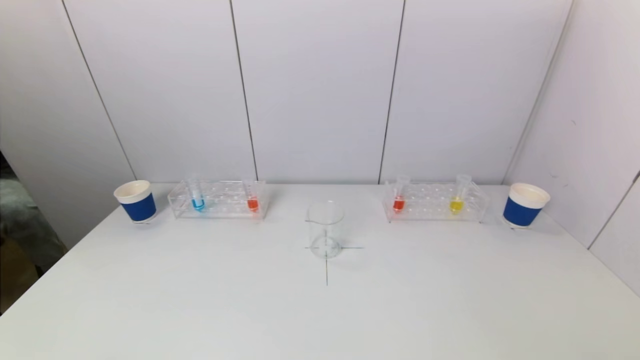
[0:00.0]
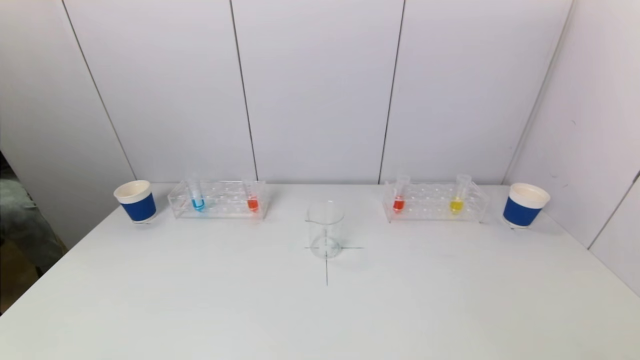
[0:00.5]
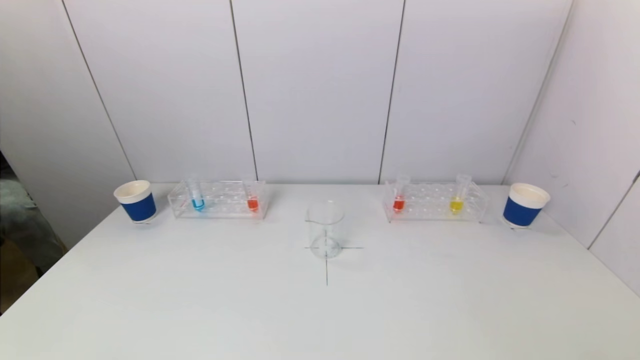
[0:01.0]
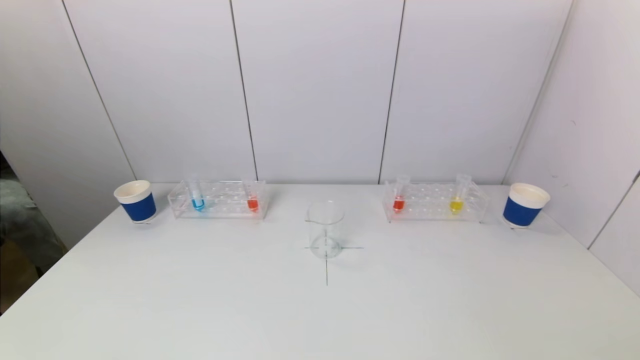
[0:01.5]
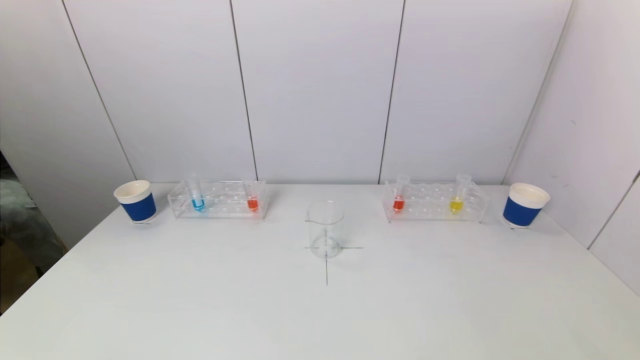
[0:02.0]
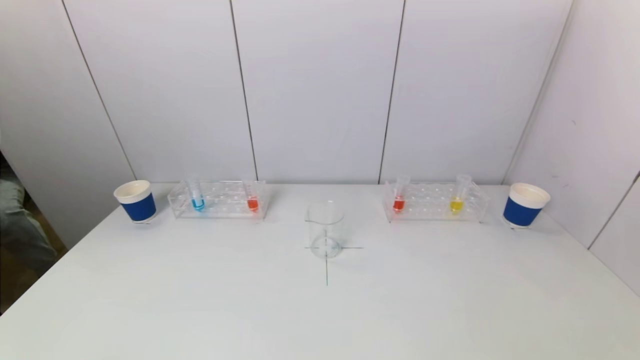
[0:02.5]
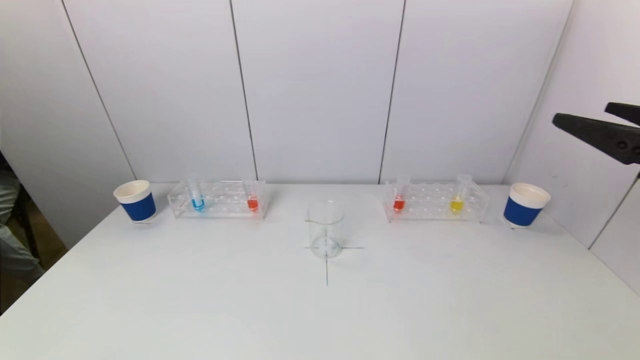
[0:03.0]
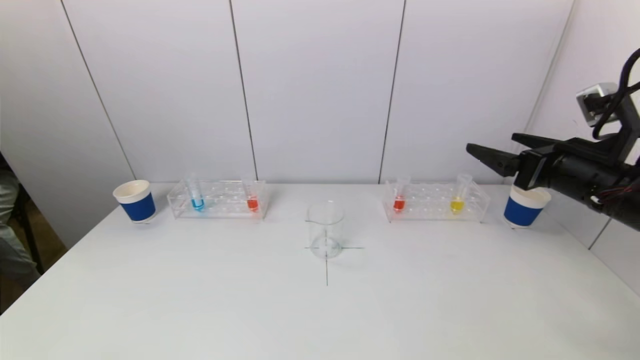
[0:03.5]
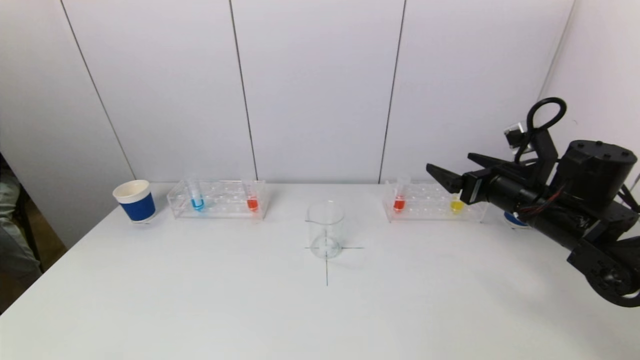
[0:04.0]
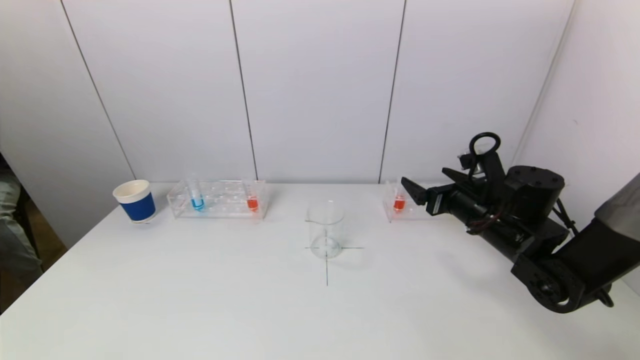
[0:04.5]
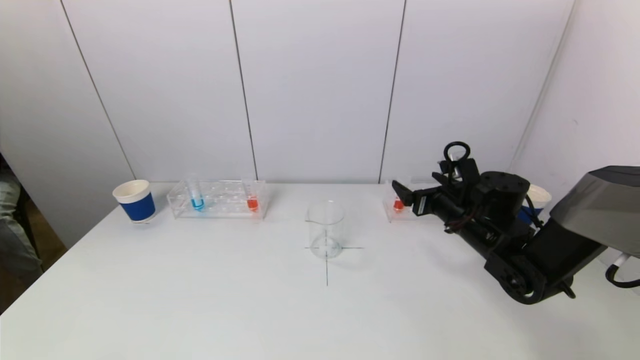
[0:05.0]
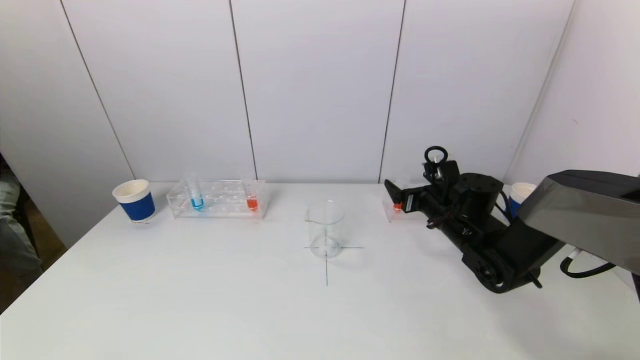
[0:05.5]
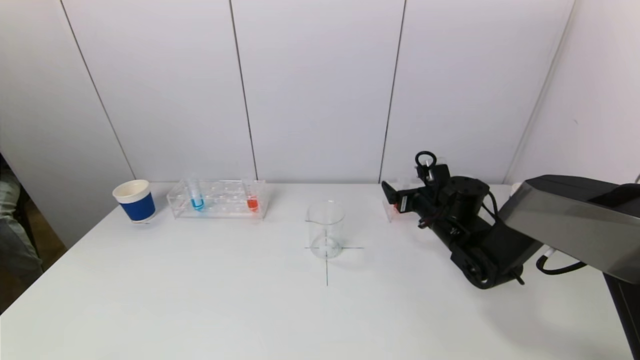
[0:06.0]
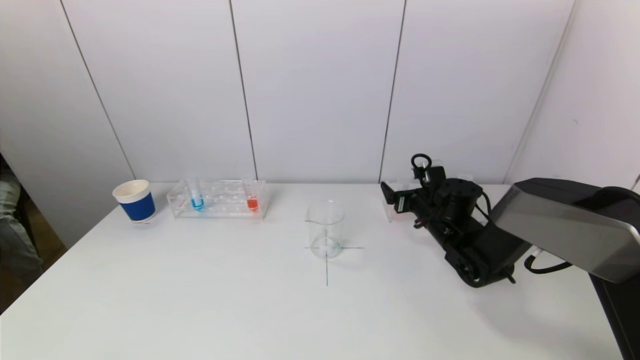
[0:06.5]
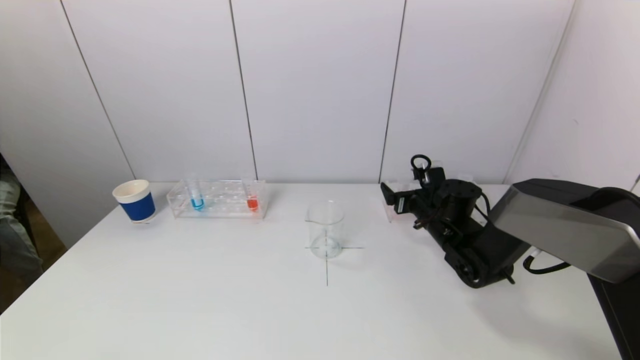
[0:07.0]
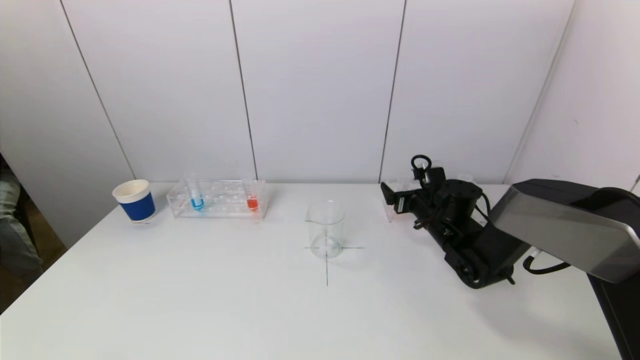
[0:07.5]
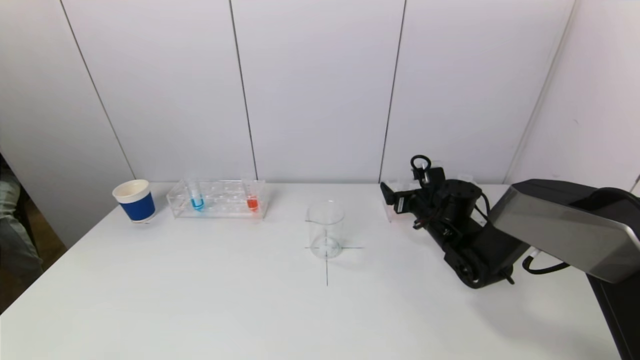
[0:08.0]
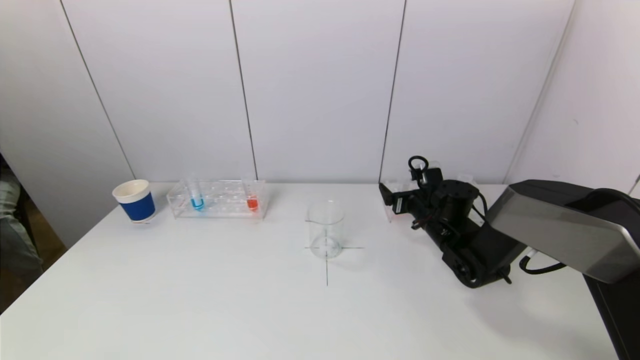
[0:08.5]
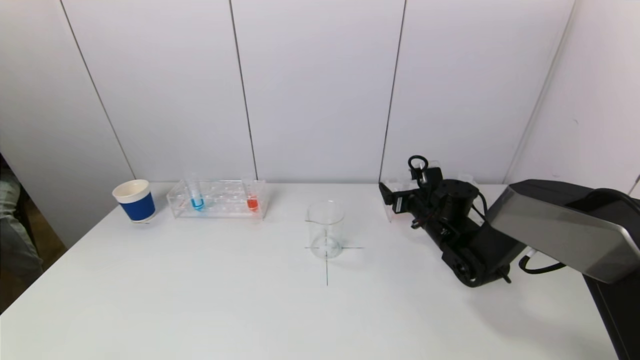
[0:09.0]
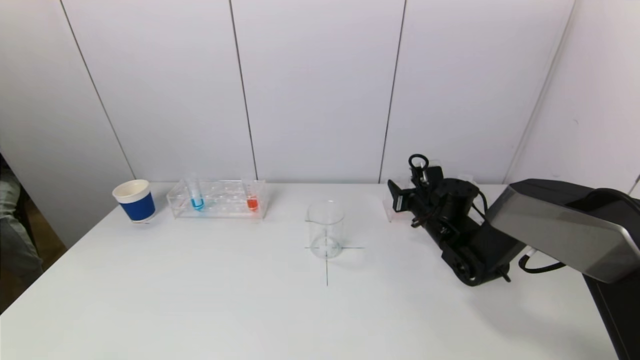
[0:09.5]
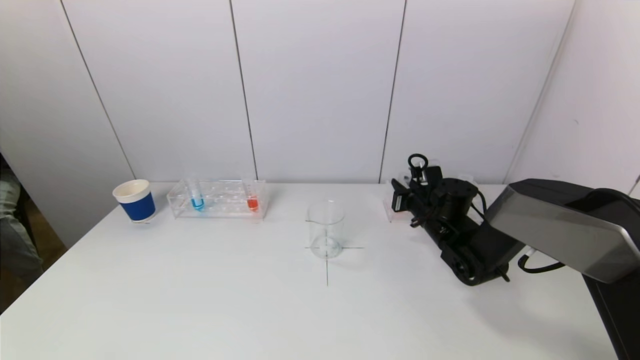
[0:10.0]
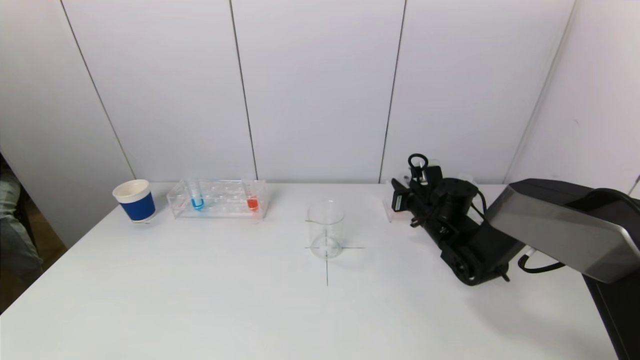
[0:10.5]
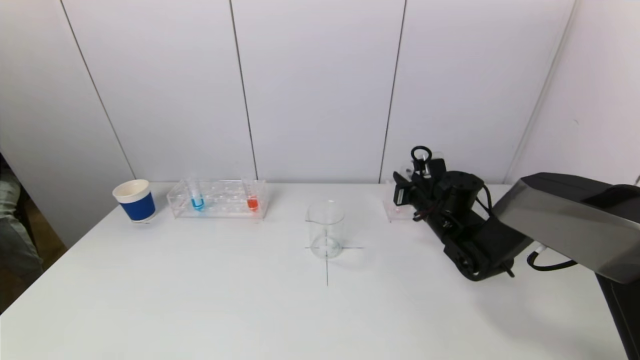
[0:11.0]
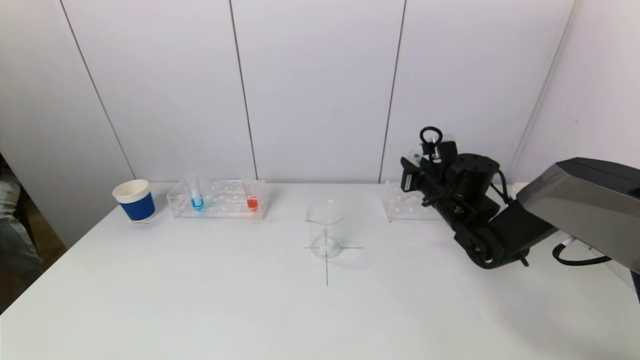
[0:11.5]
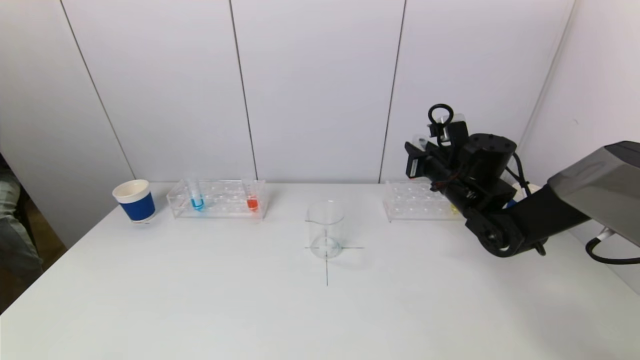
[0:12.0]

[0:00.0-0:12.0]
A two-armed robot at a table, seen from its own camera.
Task of the whole recording: pick up a test tube with pigment on left test tube rack and a test tube with pigment on right test tube rack by grippers and pour them into the beaker.
Step, 0:00.0 to 0:09.5: Grasp the red reagent with the right gripper.
0:02.0 to 0:04.0: The right gripper shifts approximately 35 cm forward.
0:04.0 to 0:06.0: The right gripper moves downward, forward and to the left, approximately 15 cm.
0:06.0 to 0:08.0: Both grippers stay about where they are.
0:08.0 to 0:10.0: The right gripper closes its fingers.
0:10.0 to 0:12.0: The right gripper moves upward, about 10 cm.

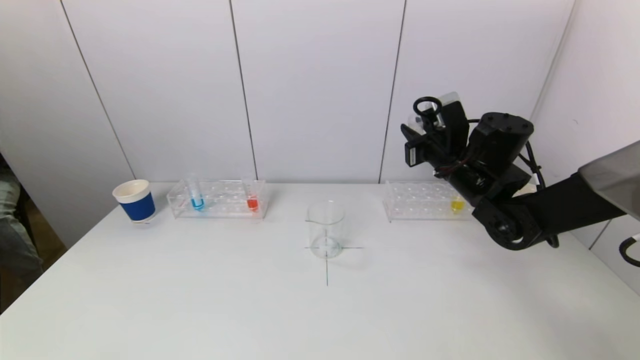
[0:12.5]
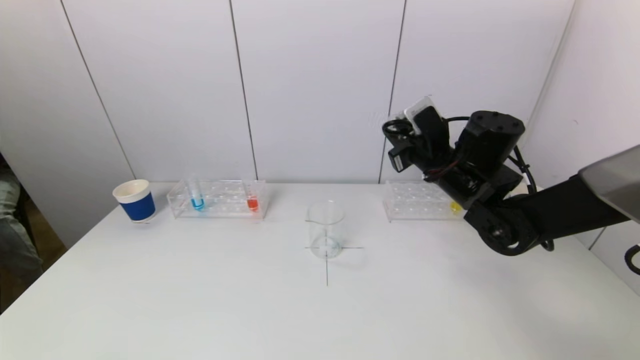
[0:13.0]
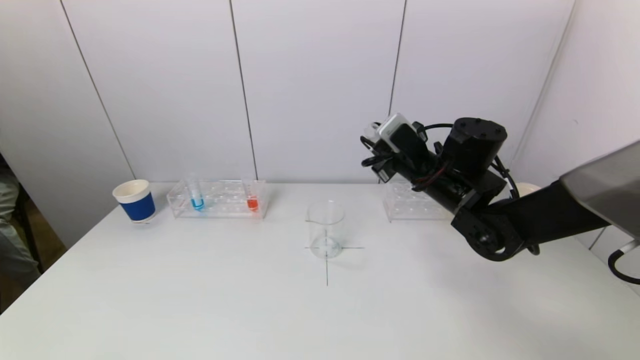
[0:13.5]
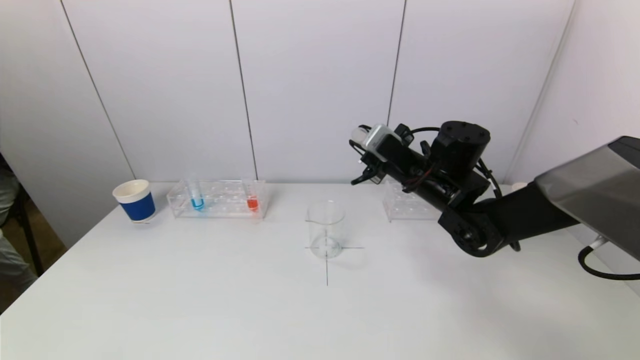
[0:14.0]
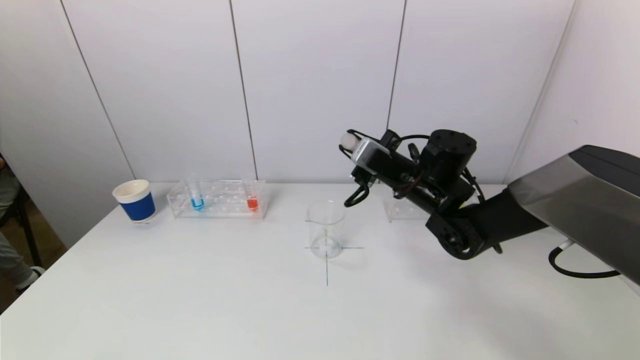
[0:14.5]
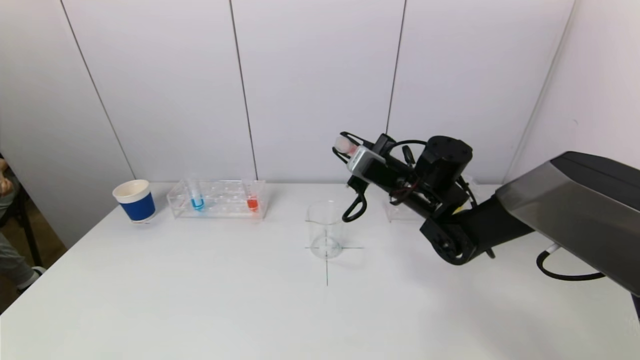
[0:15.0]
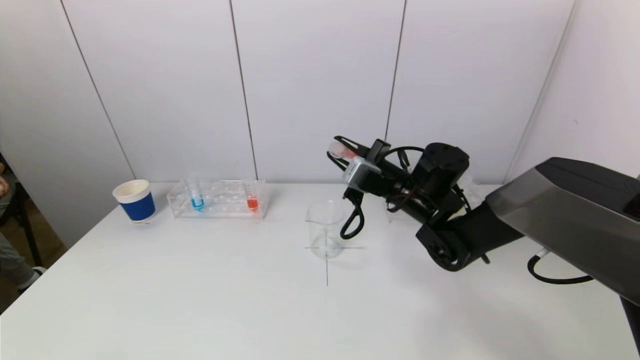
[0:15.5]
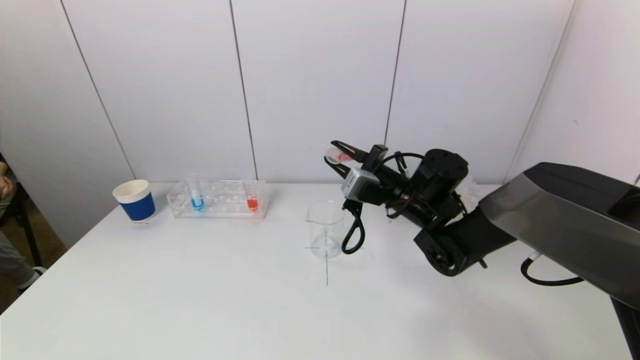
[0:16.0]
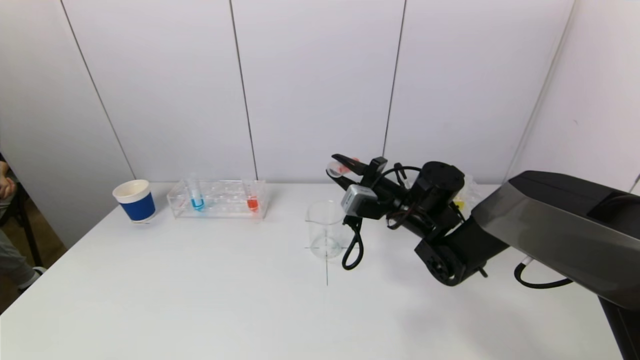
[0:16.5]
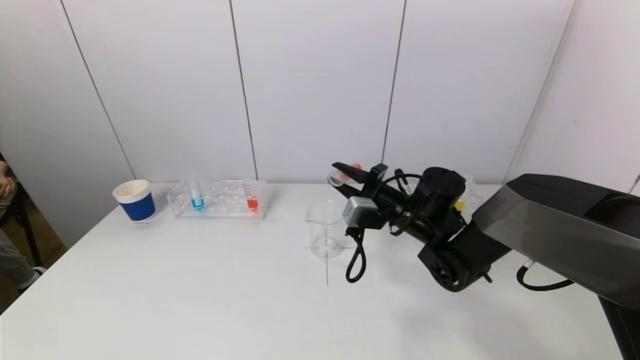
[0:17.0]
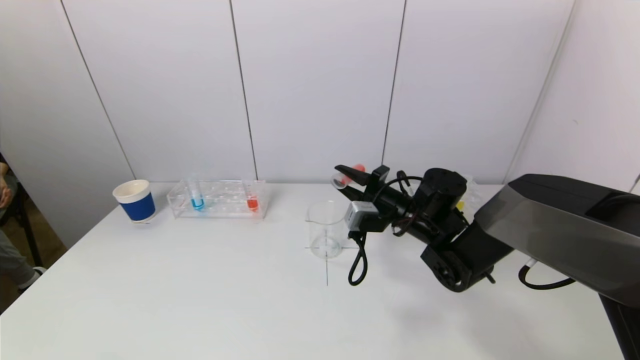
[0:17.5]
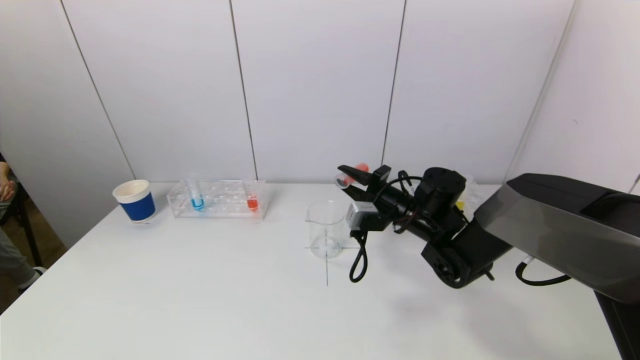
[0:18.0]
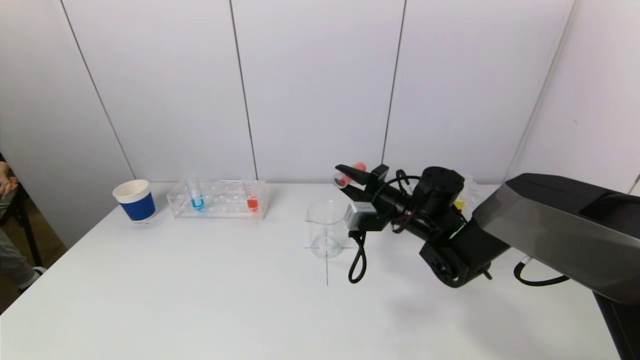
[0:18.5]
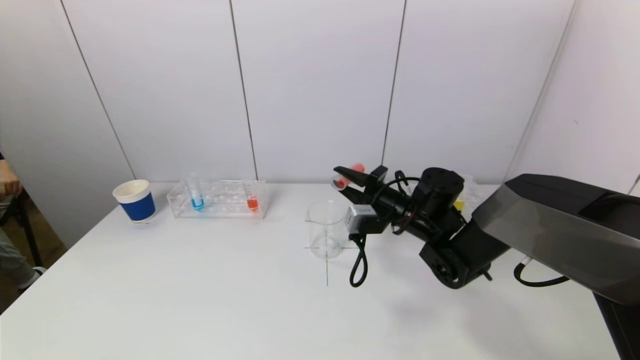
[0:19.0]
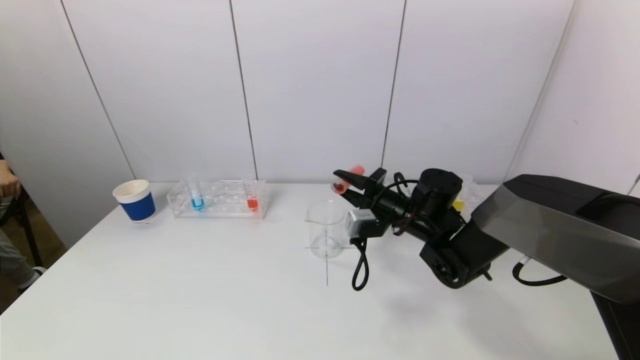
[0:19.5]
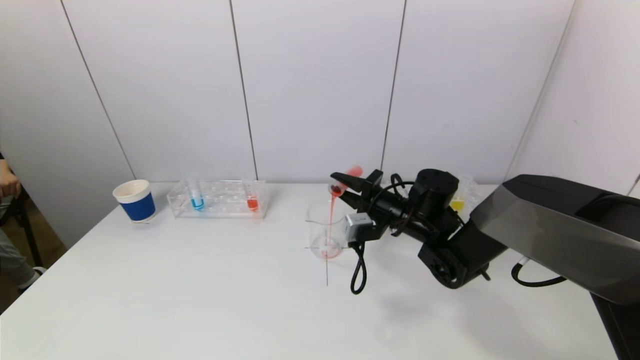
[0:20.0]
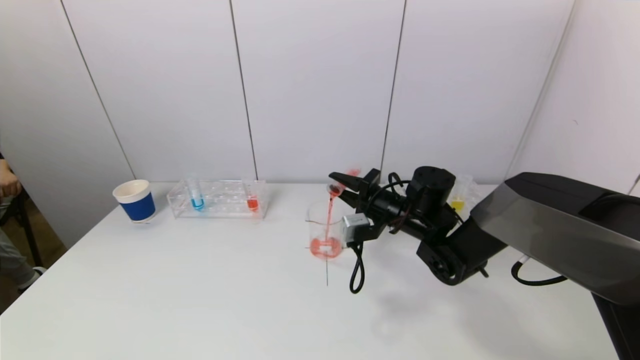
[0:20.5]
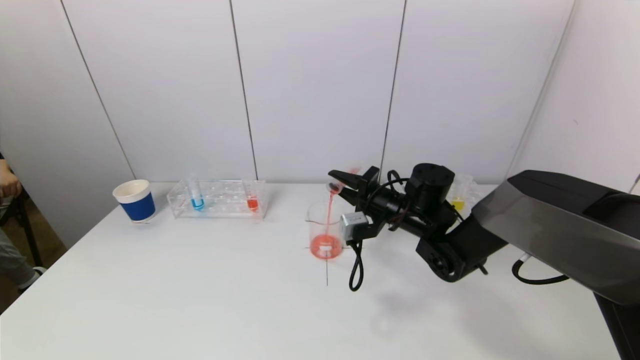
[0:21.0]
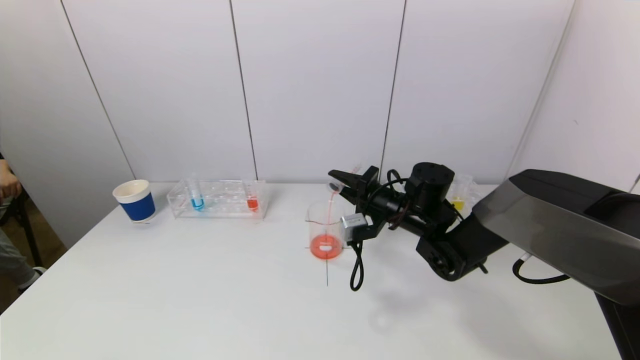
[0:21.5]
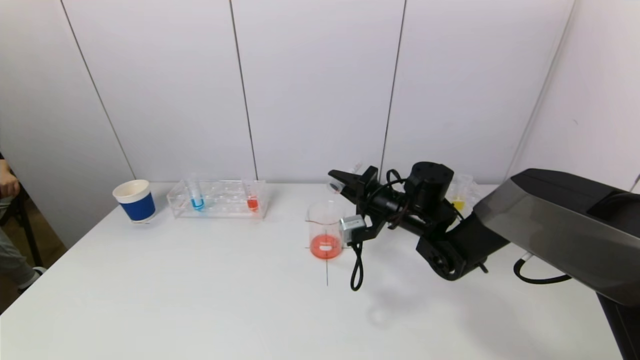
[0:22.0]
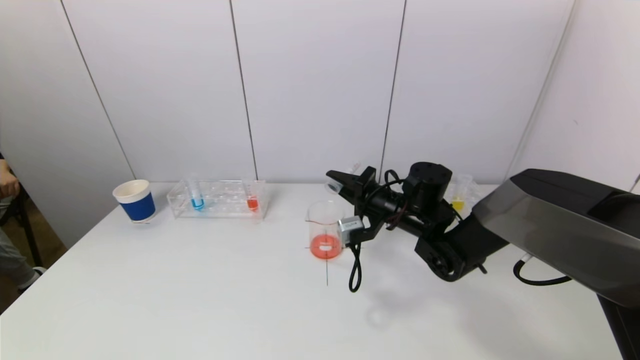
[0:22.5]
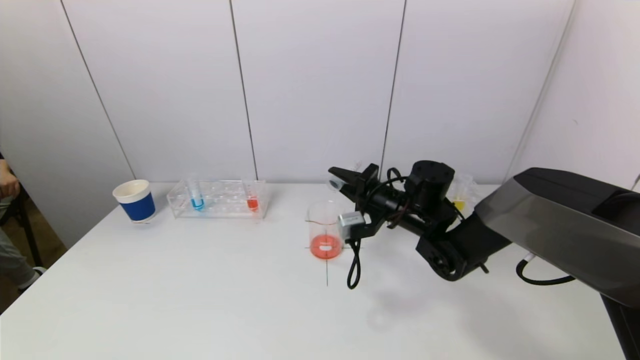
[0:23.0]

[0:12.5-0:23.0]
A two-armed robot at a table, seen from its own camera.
Task of the whole recording: pick up a test tube with pigment on left test tube rack and a test tube with pigment on right test tube rack by grippers and pour them into the beaker.
Step, 0:12.5 to 0:22.0: Pour the red reagent into the graduated cylinder with the right gripper.
0:12.5 to 0:14.5: The right gripper goes some 5 cm to the left.
0:14.5 to 0:16.5: There are only small adjustments of the grippers.
0:16.5 to 0:19.0: The grippers stay close to where they were, moving slightly.
0:19.0 to 0:21.0: The grippers move only a little.
0:21.0 to 0:23.0: The grippers move only a little.
